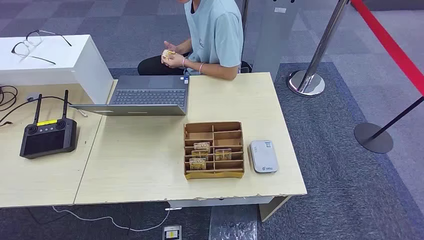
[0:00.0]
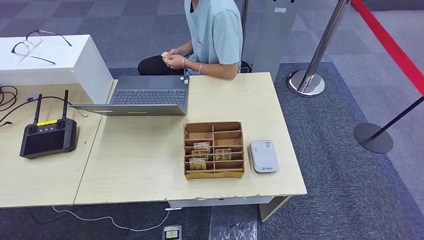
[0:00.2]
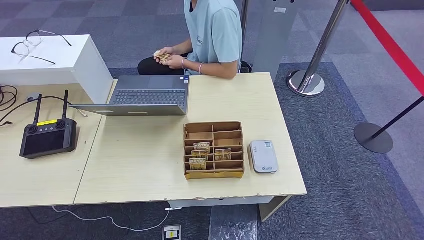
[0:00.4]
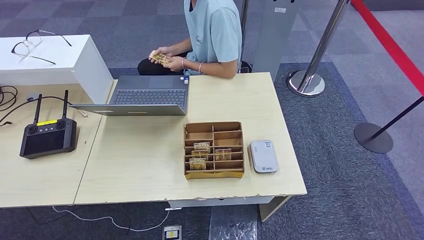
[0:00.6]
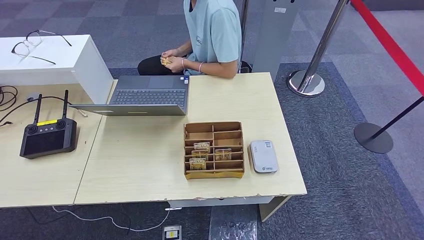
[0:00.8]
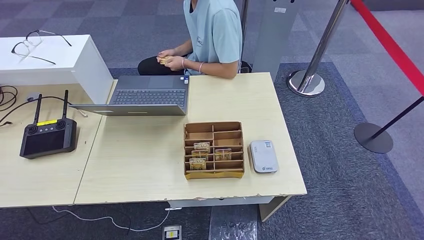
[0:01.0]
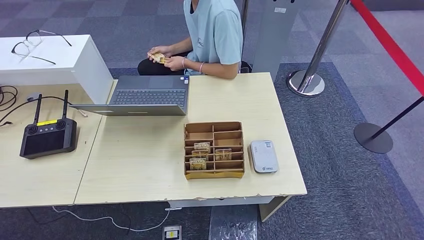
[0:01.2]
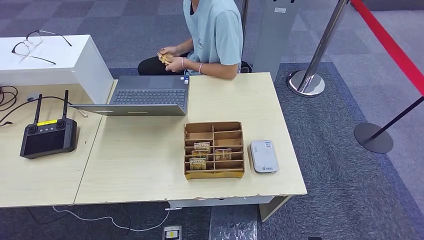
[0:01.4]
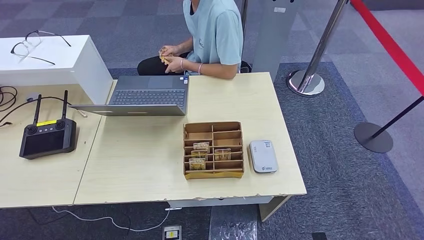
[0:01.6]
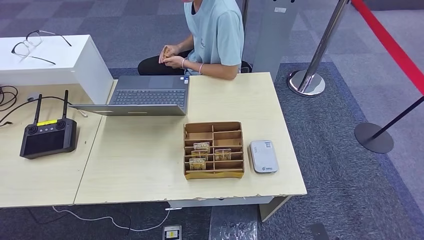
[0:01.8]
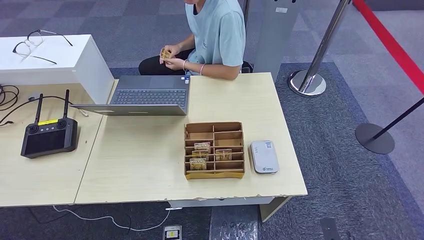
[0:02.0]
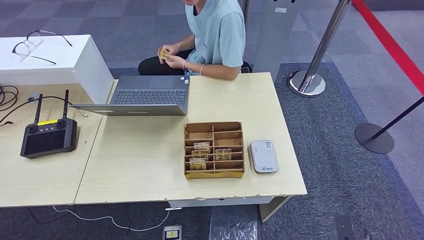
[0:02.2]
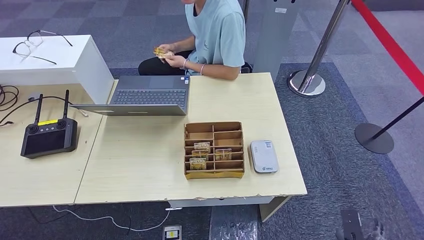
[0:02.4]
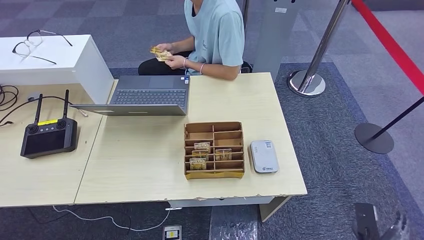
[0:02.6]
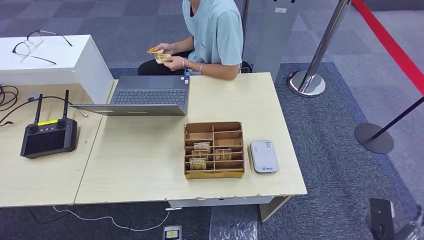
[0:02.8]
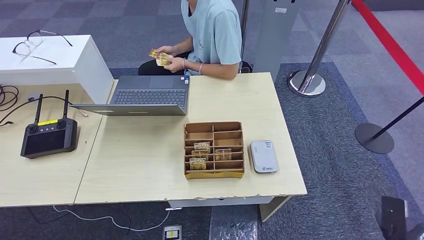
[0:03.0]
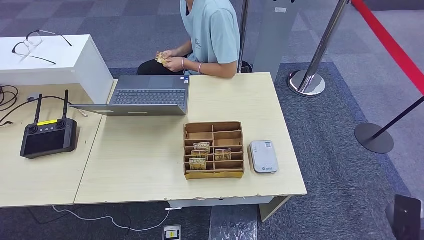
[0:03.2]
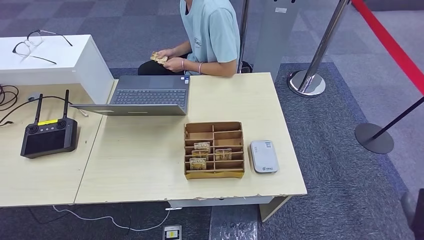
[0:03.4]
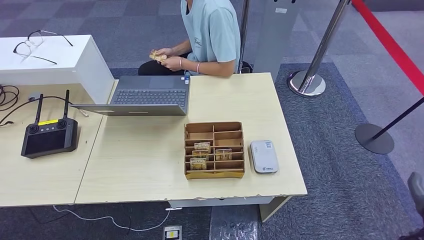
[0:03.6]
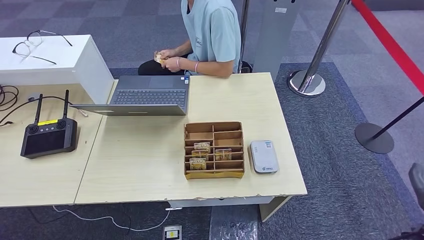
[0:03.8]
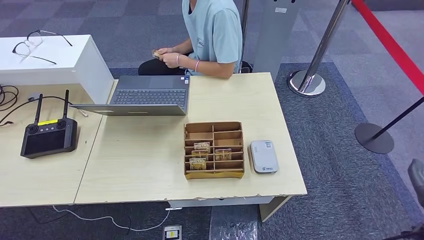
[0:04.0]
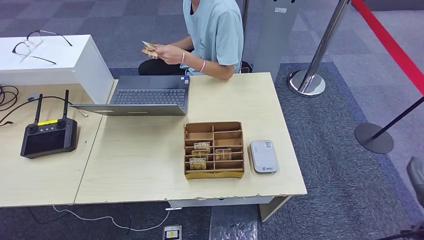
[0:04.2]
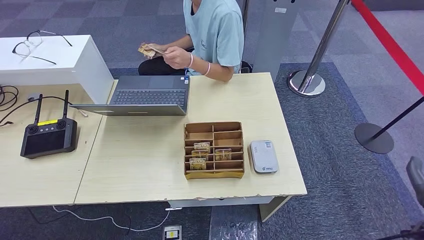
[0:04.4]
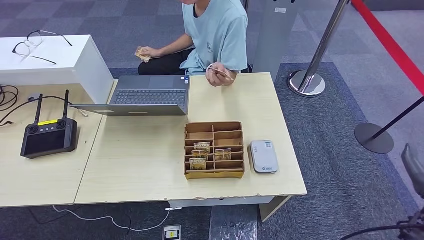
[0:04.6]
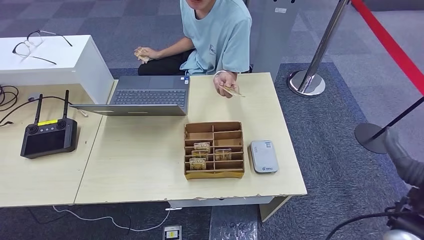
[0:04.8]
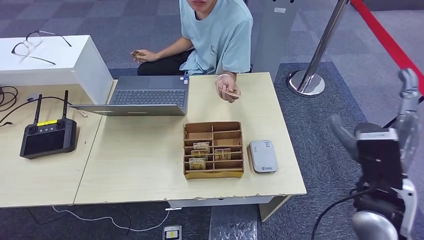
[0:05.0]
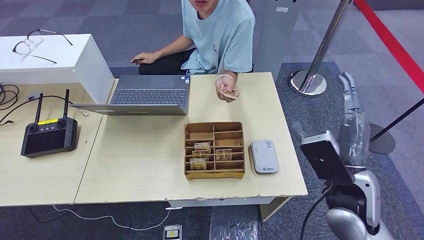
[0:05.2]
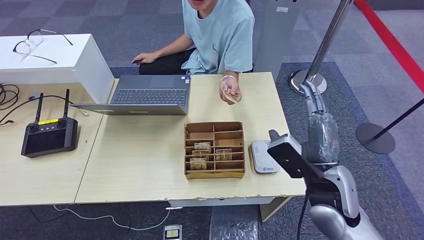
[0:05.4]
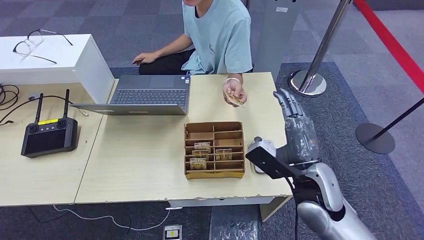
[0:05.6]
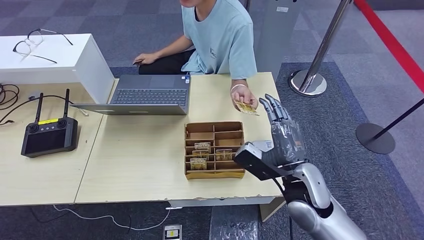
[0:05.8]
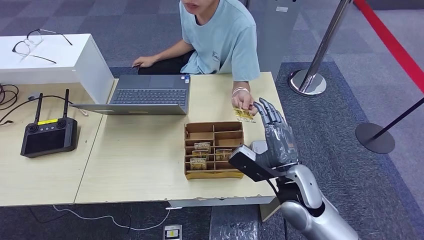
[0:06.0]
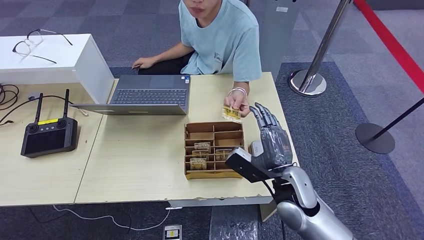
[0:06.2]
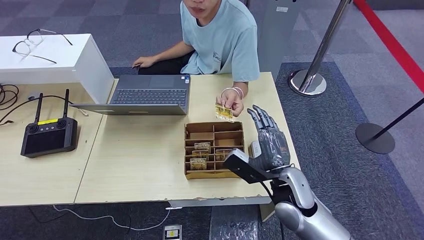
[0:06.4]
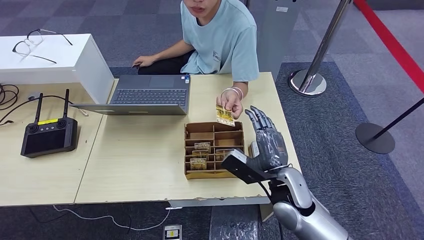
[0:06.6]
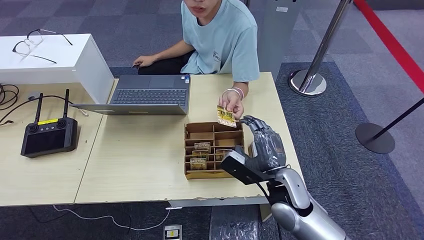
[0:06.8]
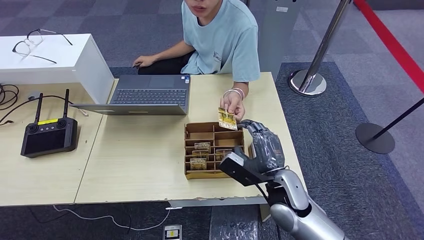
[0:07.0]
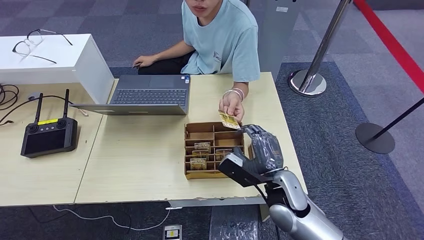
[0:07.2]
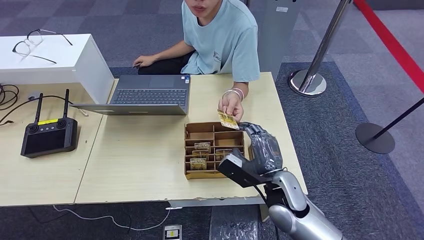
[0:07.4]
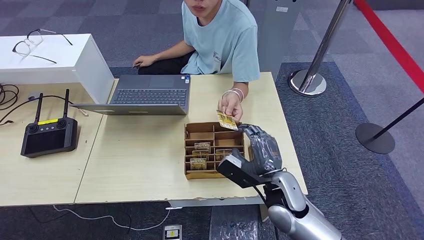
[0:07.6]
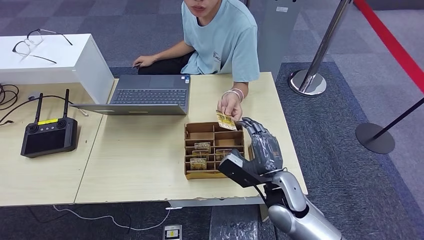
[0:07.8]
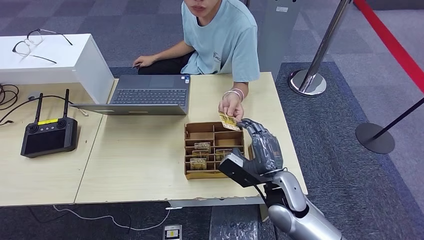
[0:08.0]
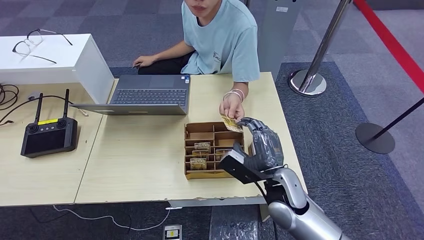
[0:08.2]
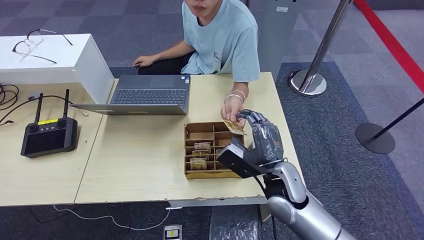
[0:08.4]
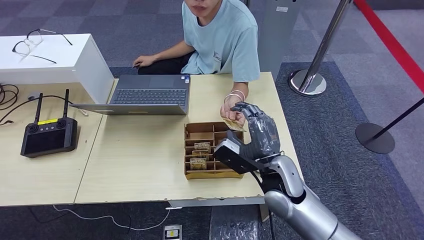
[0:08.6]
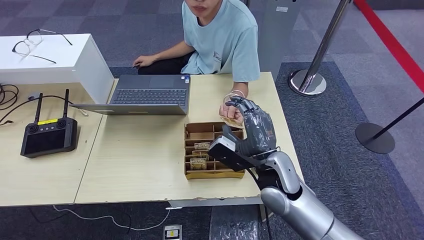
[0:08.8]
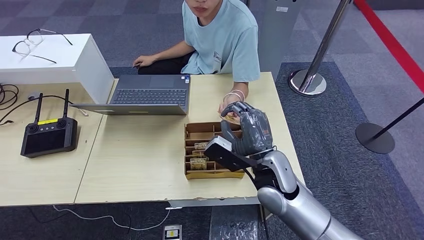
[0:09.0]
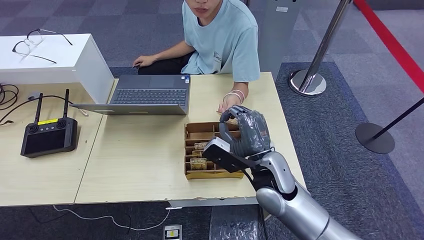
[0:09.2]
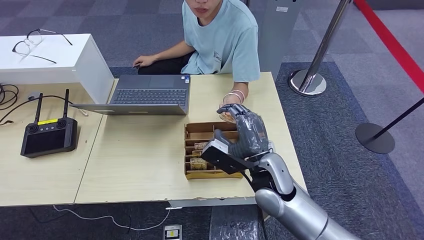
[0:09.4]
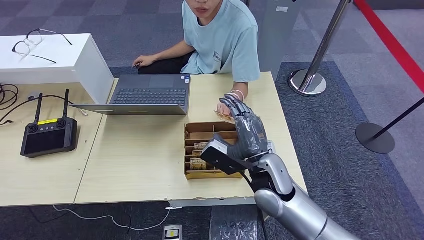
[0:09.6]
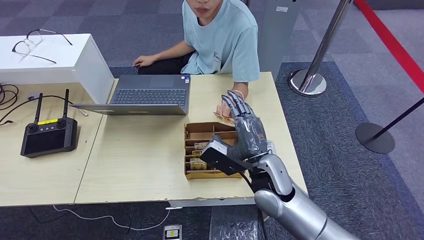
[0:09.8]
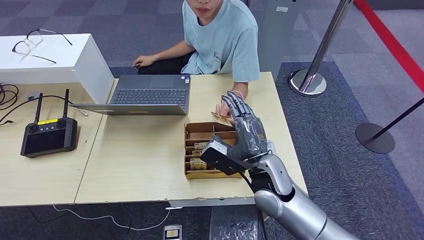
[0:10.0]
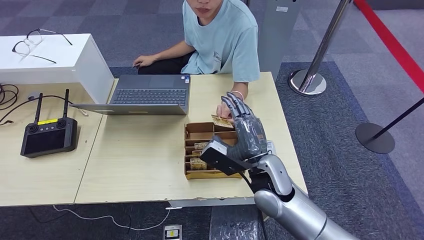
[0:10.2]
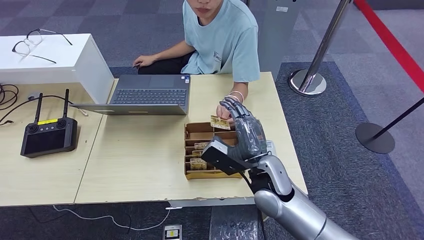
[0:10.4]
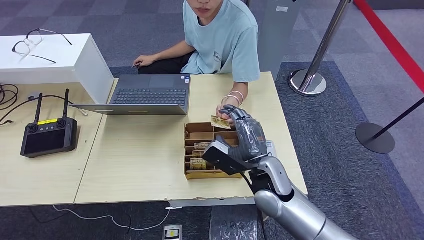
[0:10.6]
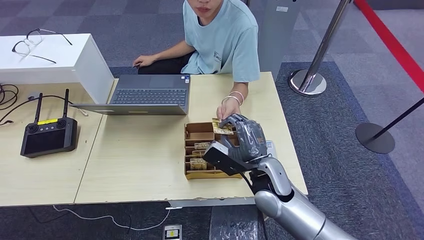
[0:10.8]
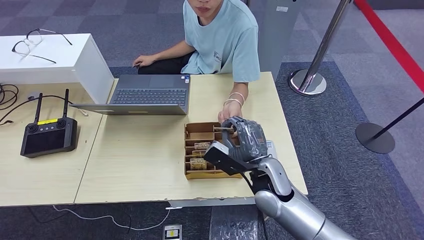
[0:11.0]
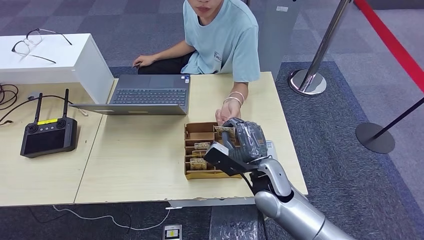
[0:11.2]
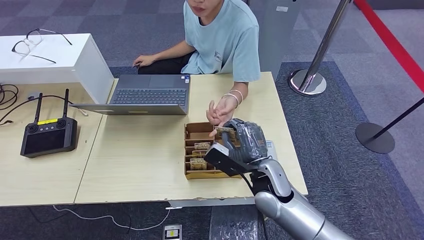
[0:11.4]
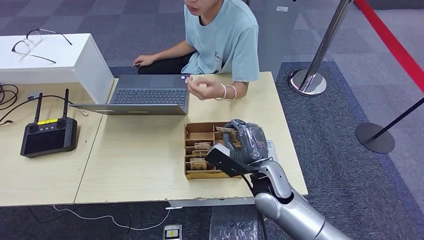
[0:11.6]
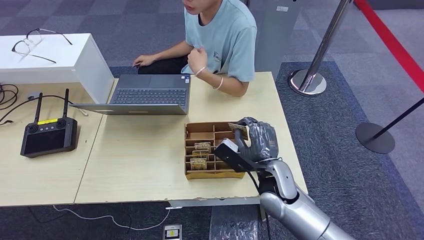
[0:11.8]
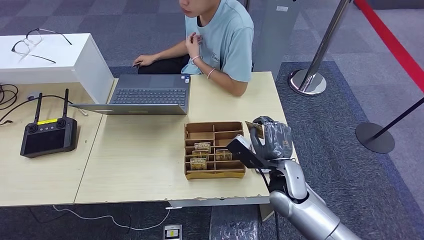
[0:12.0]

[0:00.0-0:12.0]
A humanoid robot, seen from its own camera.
Step, 0.0 to 12.0 s: Take the ID card from the person's hand.
1.6 to 3.0 s: The right hand is displaced upward and to the right by some 20 cm.
3.0 to 4.4 s: The right hand is displaced upward by some 15 cm.
4.4 to 6.0 s: The right hand is displaced to the left and forward by some 25 cm.
6.0 to 7.6 s: The hands move only a little.
7.6 to 9.0 s: The right hand goes some 5 cm upward.
9.0 to 10.4 s: The hands make only small movements.
10.4 to 12.0 s: The right hand travels to the right by about 5 cm.

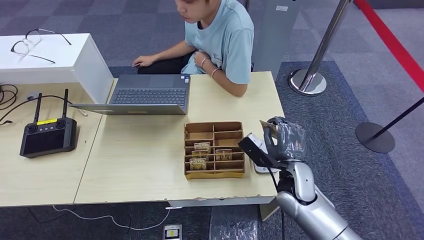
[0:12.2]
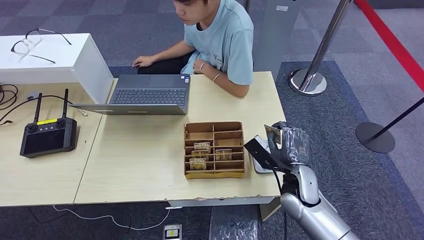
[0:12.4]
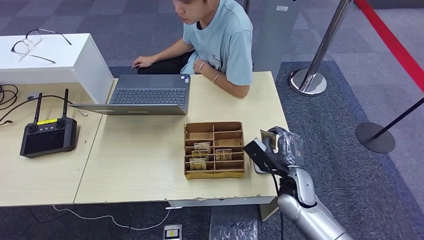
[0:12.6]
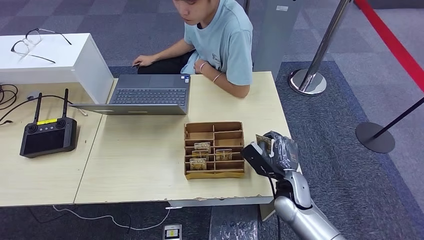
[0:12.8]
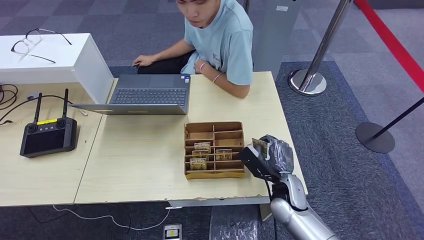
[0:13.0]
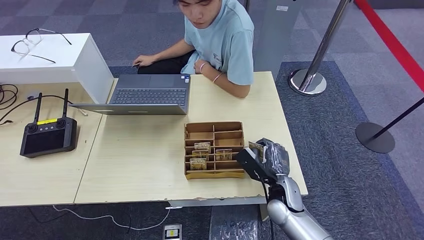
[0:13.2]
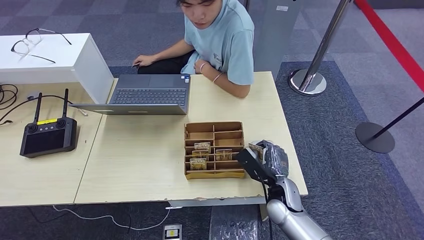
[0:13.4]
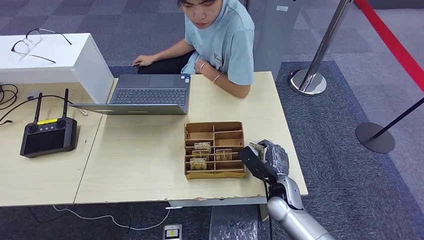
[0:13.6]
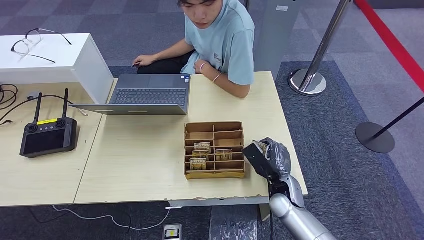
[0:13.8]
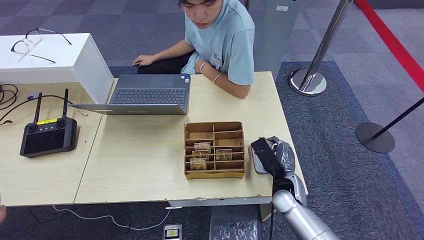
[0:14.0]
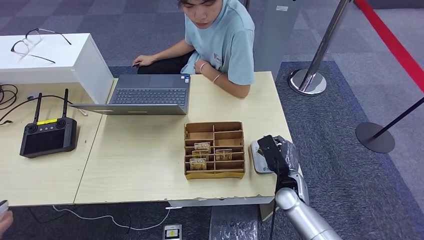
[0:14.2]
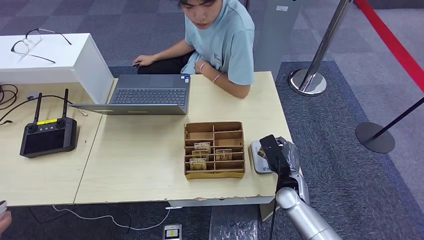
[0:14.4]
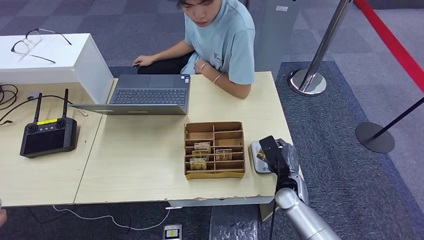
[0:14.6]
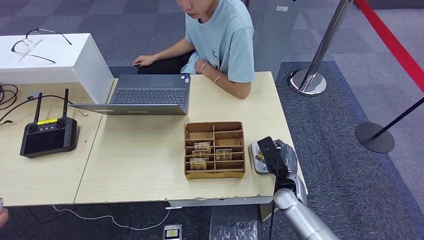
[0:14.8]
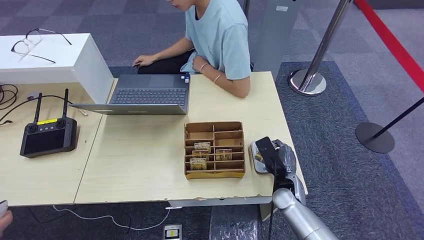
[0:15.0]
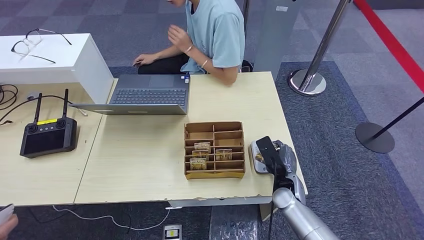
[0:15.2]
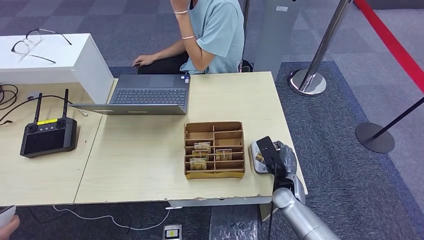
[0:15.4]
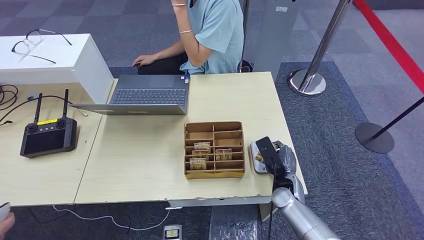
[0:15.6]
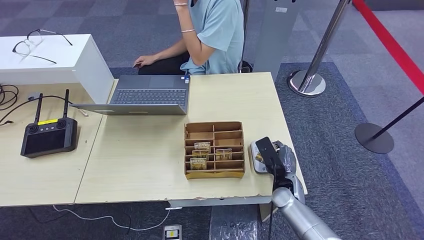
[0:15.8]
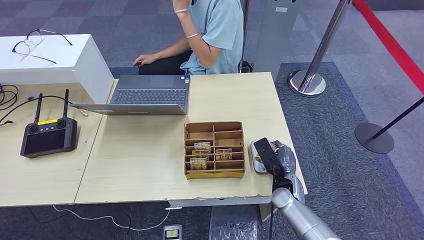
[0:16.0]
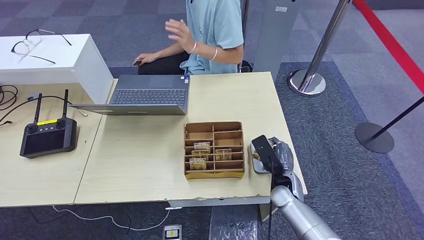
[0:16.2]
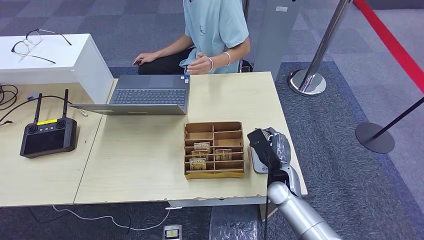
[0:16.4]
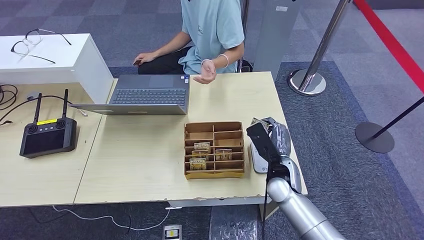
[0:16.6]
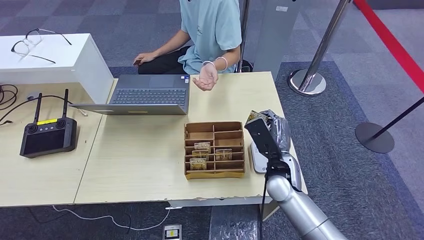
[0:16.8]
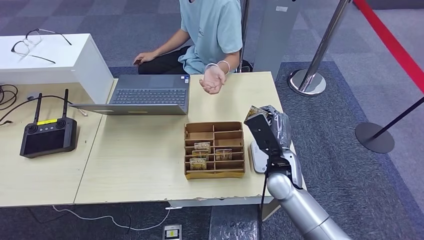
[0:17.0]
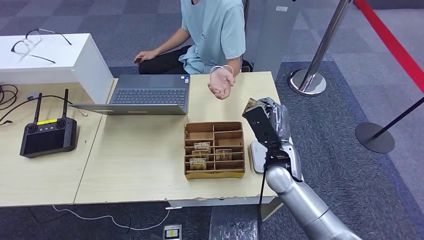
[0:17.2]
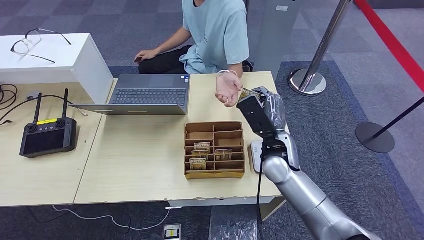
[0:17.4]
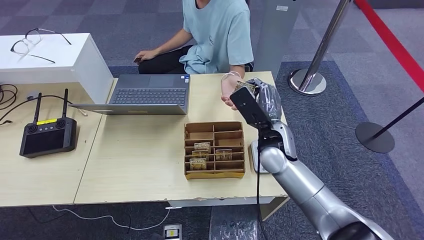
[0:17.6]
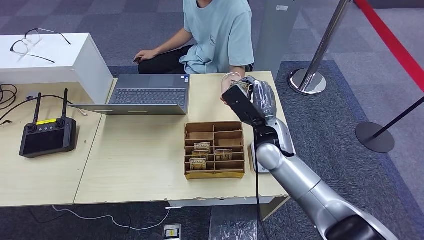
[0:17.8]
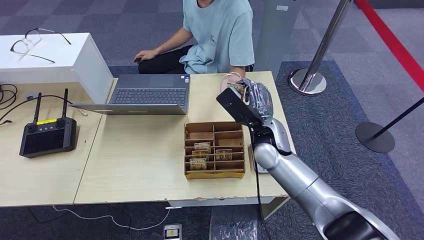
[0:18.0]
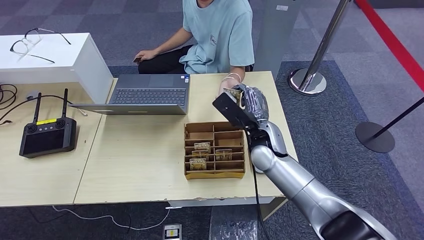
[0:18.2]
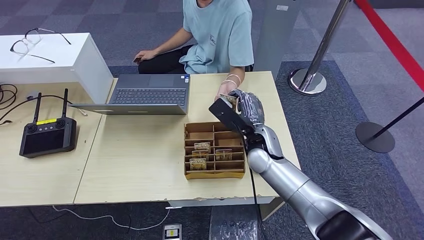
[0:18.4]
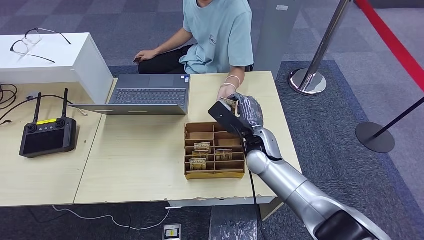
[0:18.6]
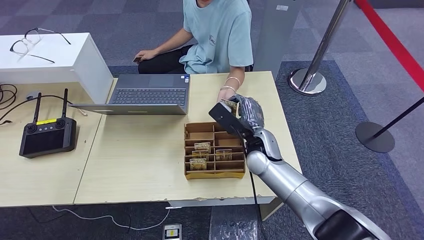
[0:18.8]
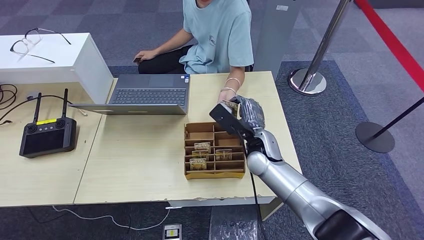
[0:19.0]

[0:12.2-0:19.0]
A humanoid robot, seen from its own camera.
Step, 12.2 to 15.6 s: Place the ID card on the card reader.
12.2 to 13.6 s: The right hand moves downward, about 5 cm.
13.6 to 15.0 s: There are only small adjustments of the hands.
15.0 to 16.2 s: The two hands keep their place.
16.2 to 17.6 s: The right hand shifts about 15 cm upward.
17.6 to 19.0 s: The right hand heads downward, covering some 5 cm.
